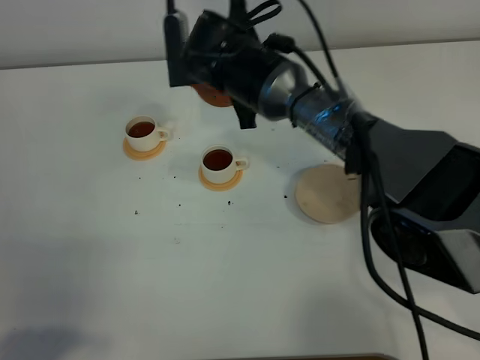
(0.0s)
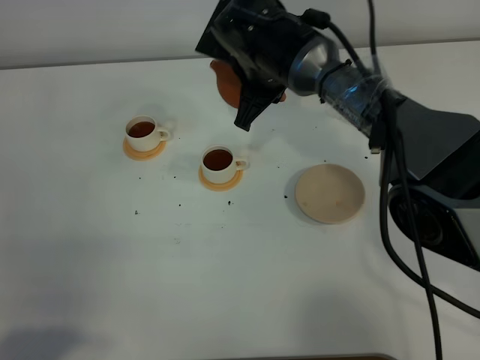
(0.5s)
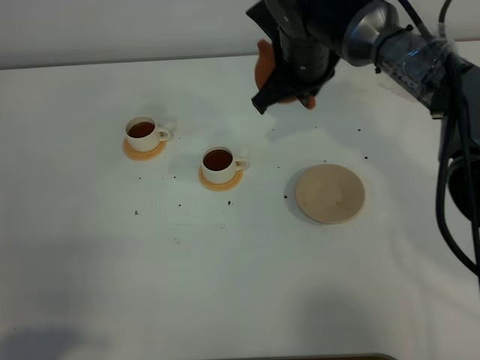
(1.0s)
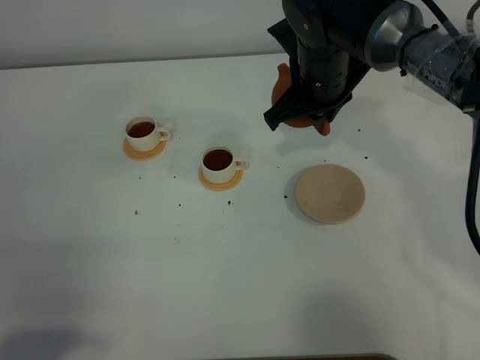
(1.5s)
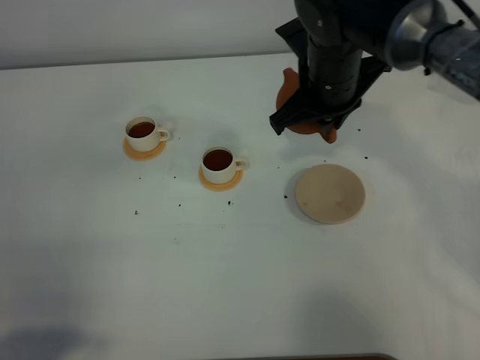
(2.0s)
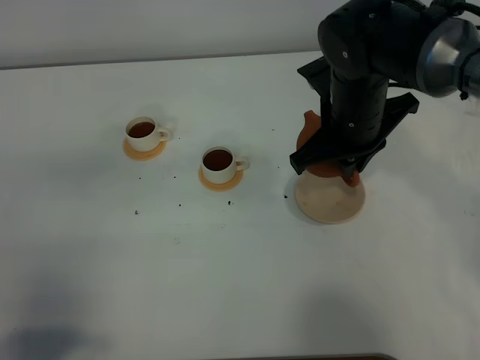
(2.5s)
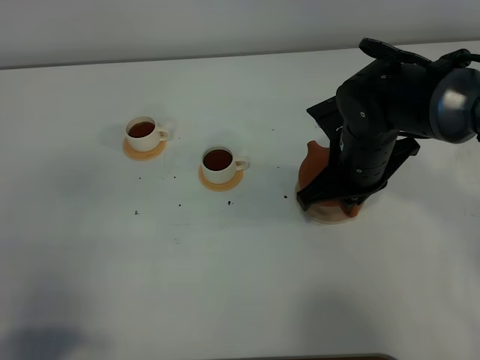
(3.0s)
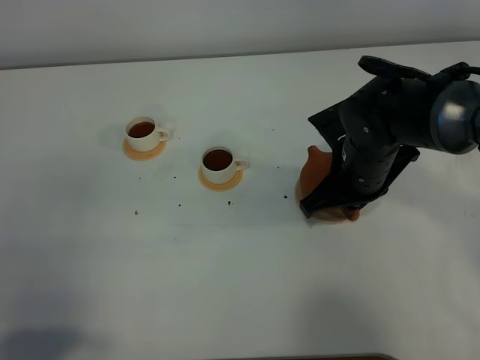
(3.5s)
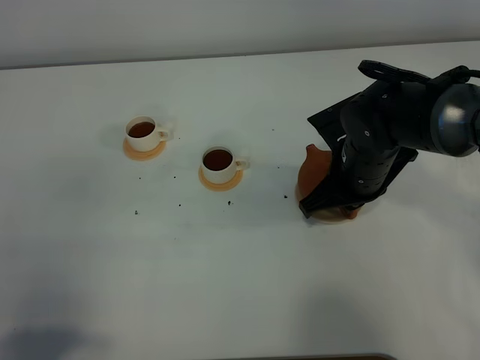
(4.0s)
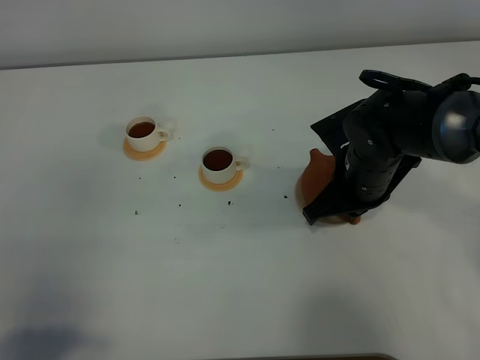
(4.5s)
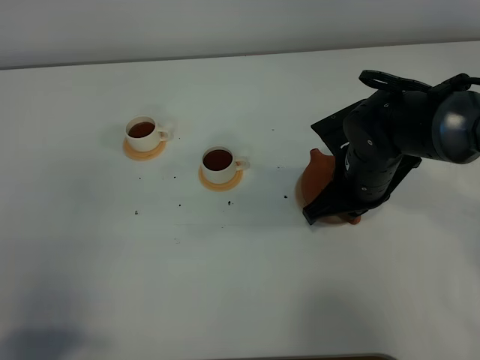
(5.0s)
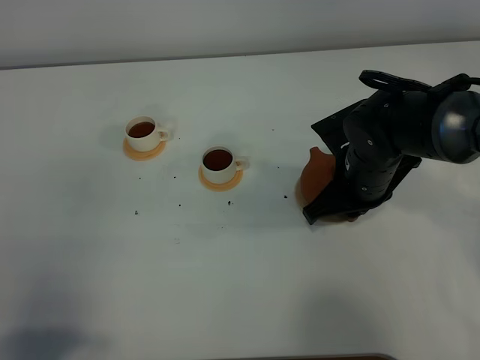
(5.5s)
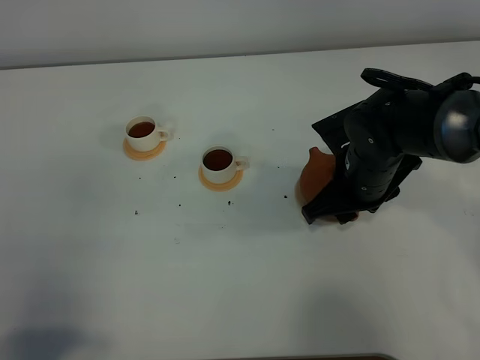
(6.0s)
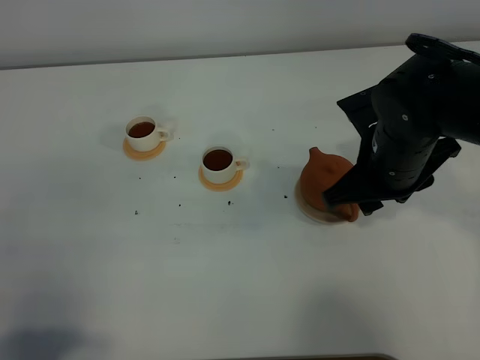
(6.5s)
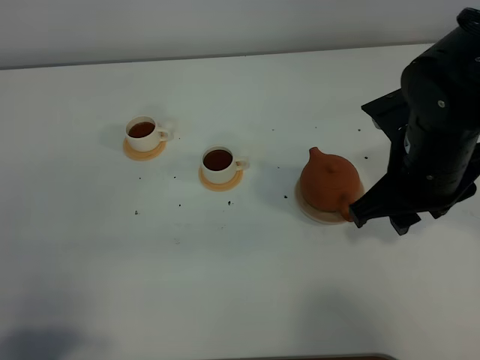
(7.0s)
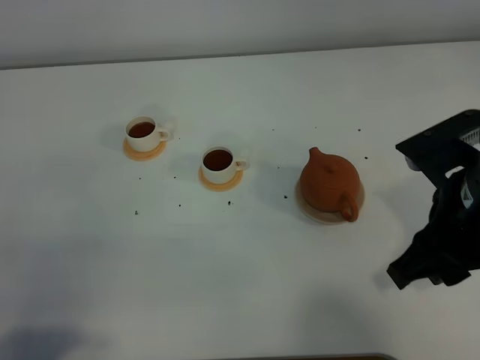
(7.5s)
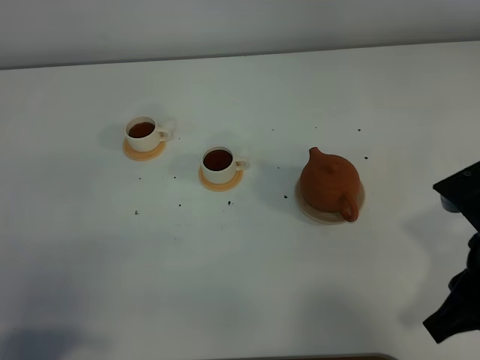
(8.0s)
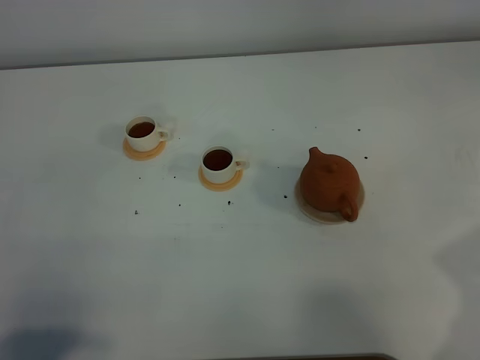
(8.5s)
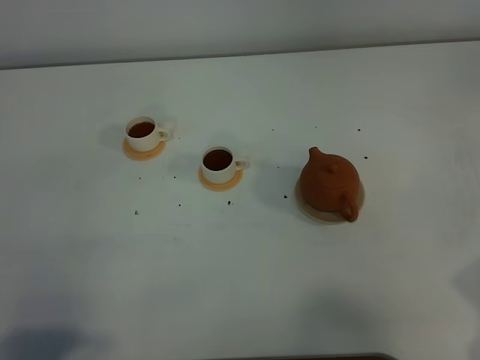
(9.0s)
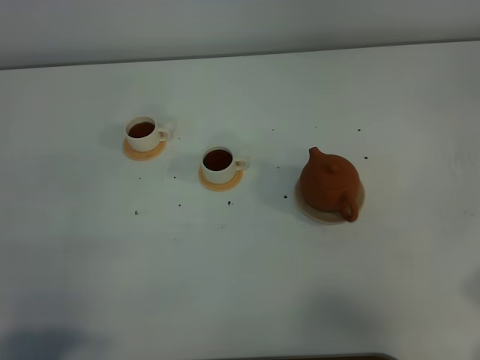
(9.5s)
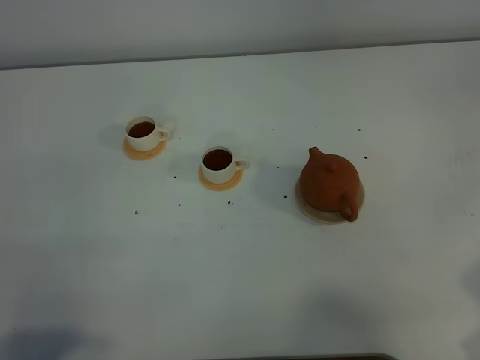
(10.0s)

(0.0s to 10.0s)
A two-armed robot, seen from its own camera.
Task of the whole recording: grasp the brown teapot and pour the tea into the two white teacups one by one, put the brown teapot back in its original place.
0.0s - 2.0s: The right gripper is displaced to the right by approximately 10 cm.
2.0s - 4.0s: The right gripper heads downward and backward, covering about 10 cm.
4.0s - 6.0s: The right gripper opens its fingers.
6.0s - 8.0s: The right gripper travels backward, upward and to the right by approximately 20 cm, and closes up.
8.0s - 10.0s: The right gripper is displaced to the right and backward by approximately 10 cm.
